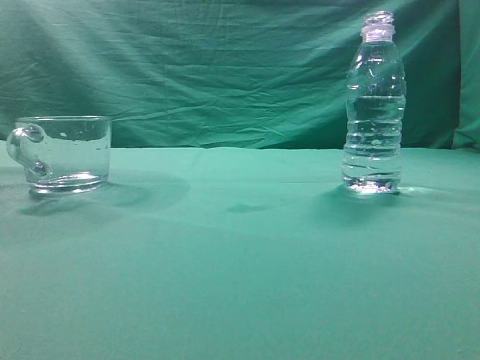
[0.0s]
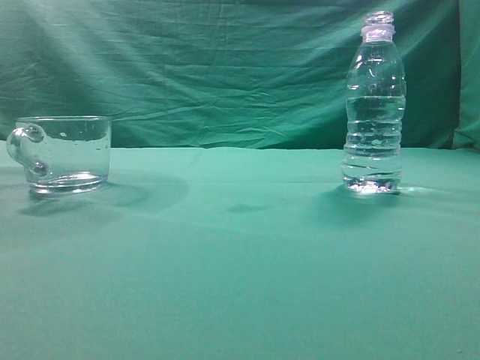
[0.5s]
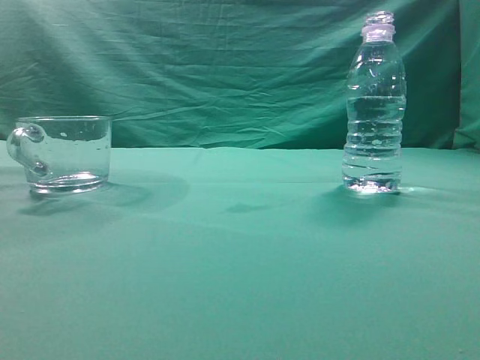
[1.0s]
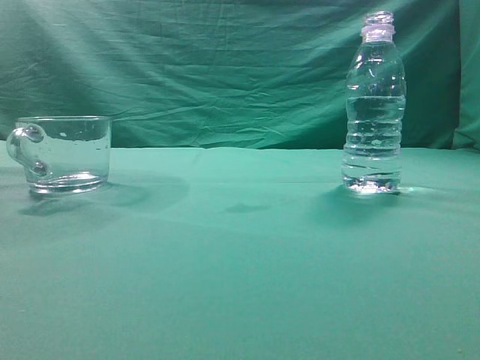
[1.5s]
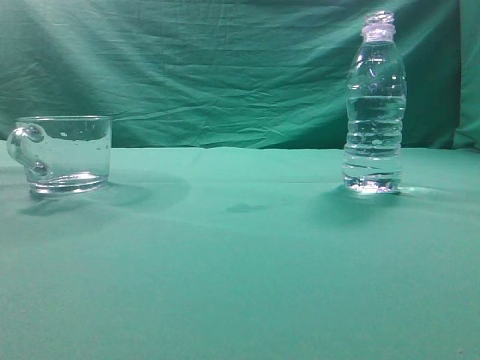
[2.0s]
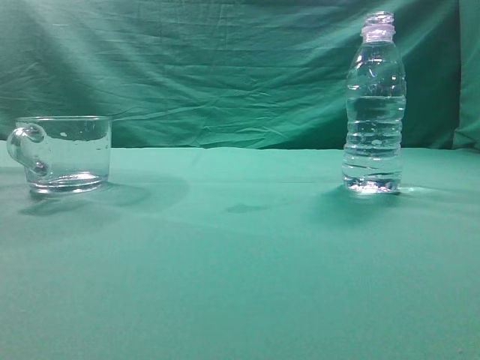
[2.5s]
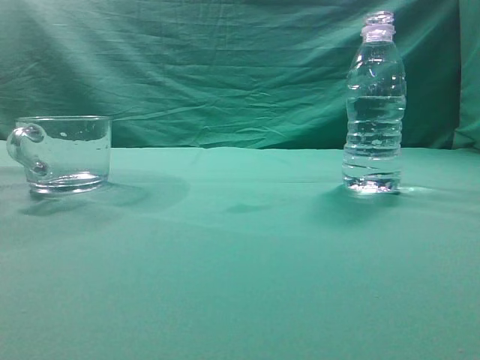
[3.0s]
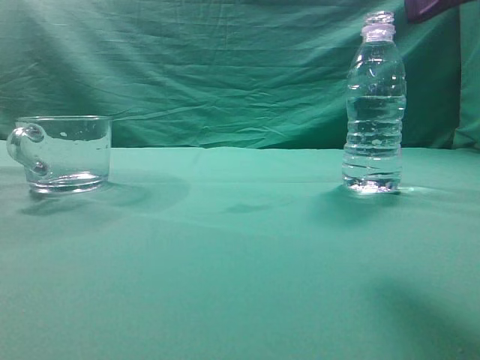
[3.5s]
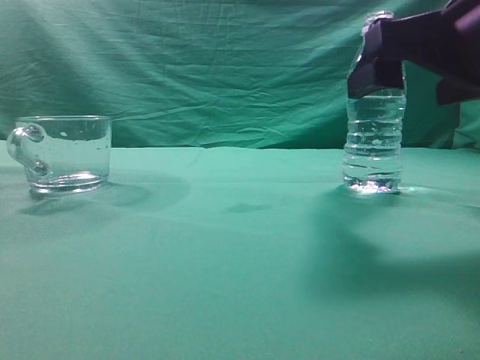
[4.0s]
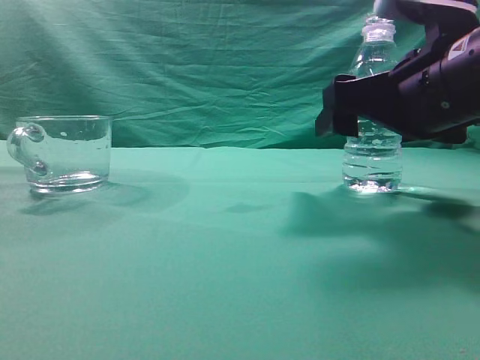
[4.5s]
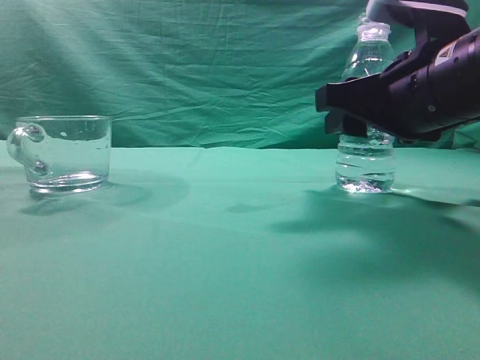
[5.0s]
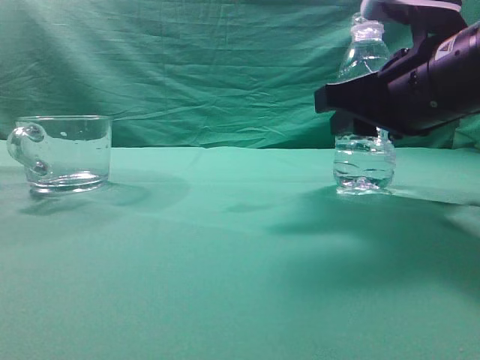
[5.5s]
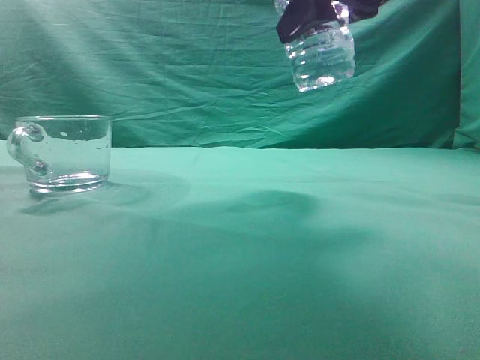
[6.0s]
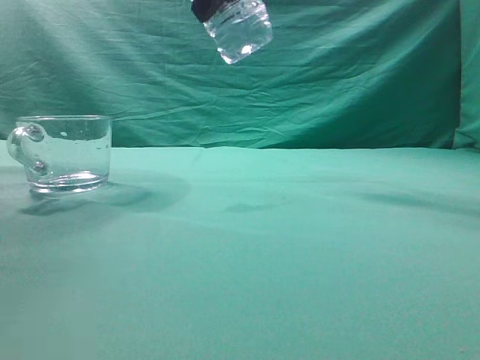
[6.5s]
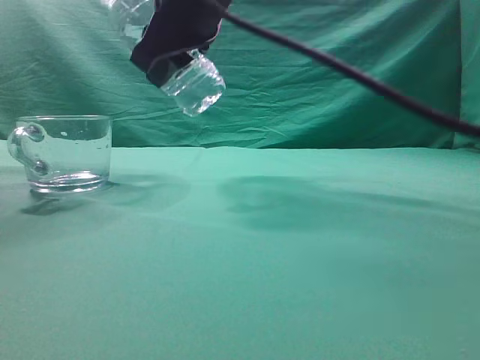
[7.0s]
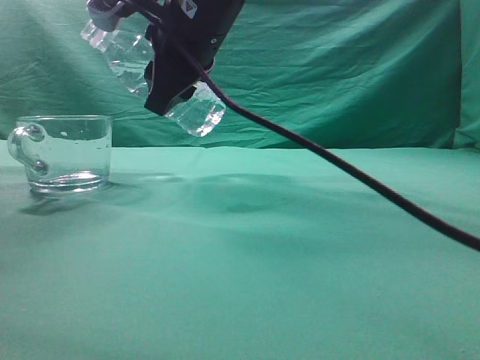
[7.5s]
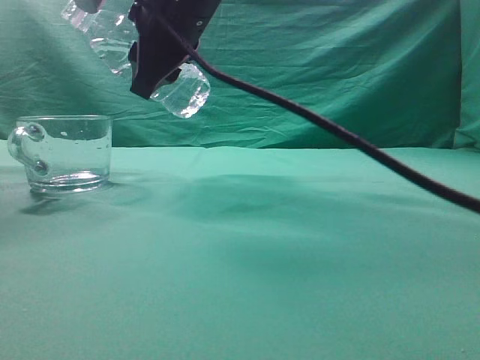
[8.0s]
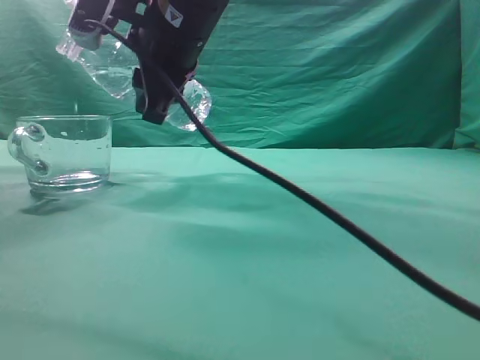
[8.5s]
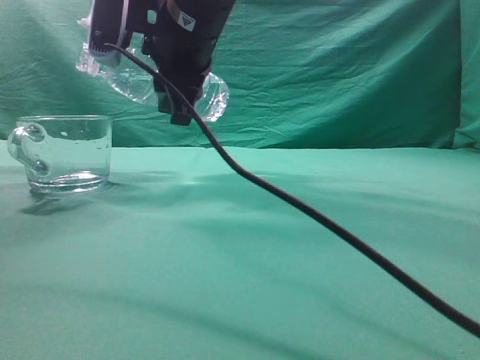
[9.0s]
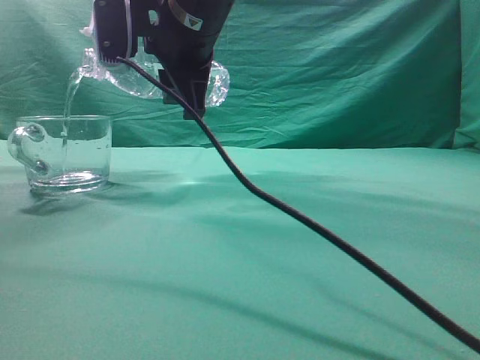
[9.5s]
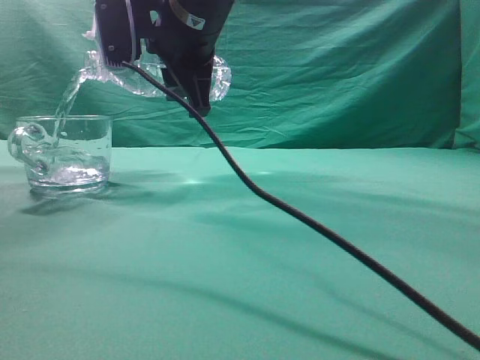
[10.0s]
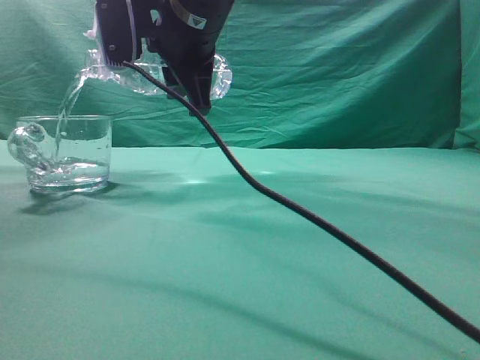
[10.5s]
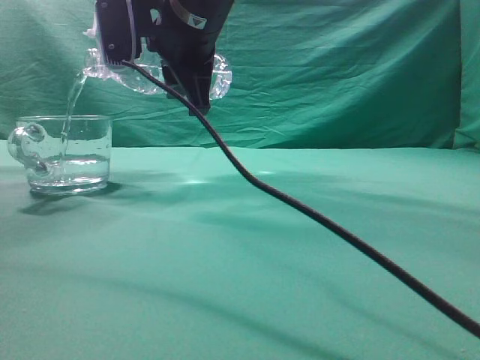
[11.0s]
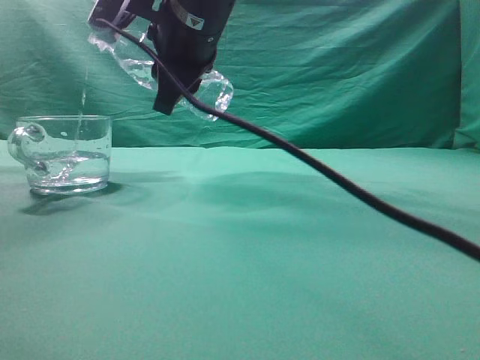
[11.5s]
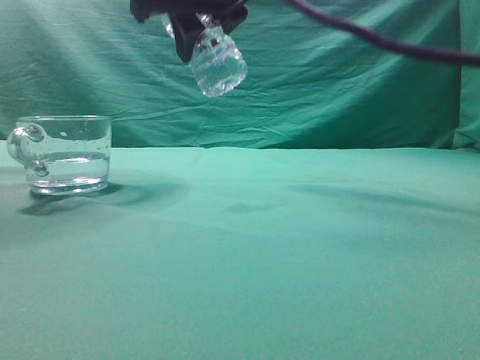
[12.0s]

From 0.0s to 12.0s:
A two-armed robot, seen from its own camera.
Task of the whole recording: pick up the water bottle and pour the water in it into the glass.
Step, from 0.0s to 5.5s: Grasp the mineral water bottle.
Step, from 6.0s to 11.5s: Pour water into the teacup.
From 2.0s to 4.0s: The right gripper shifts roughly 25 cm forward, to the left and downward, and opens.
From 4.0s to 6.0s: The right gripper heads upward, to the left and forward, covering roughly 15 cm, and closes up.
From 6.0s to 8.0s: The right gripper shifts some 15 cm to the left.
From 10.0s to 12.0s: The right gripper travels upward by about 5 cm.

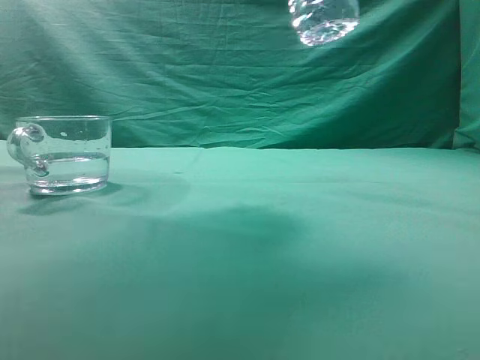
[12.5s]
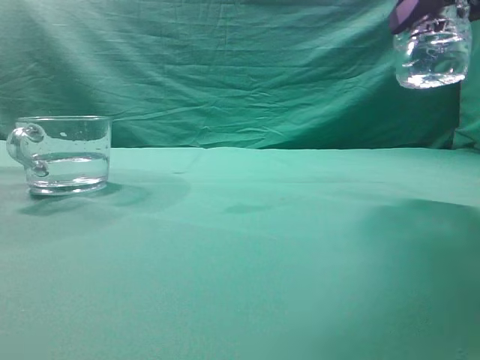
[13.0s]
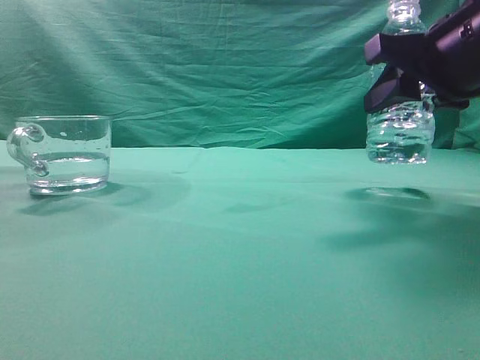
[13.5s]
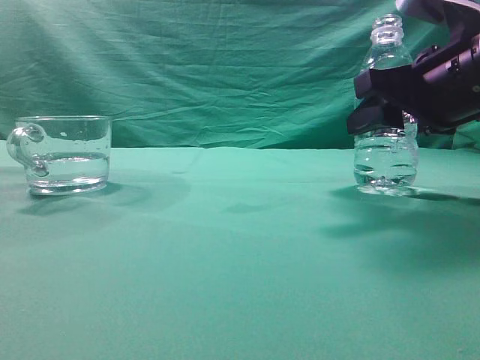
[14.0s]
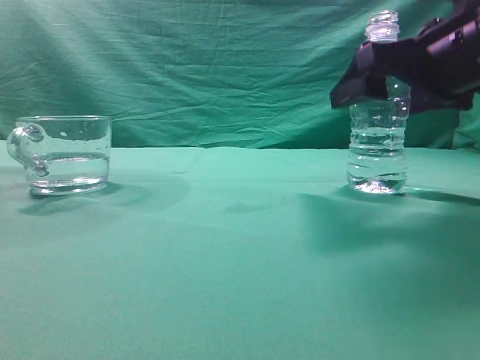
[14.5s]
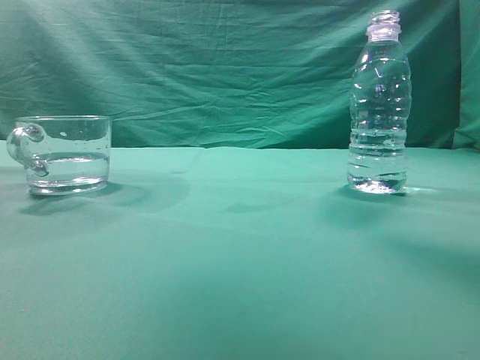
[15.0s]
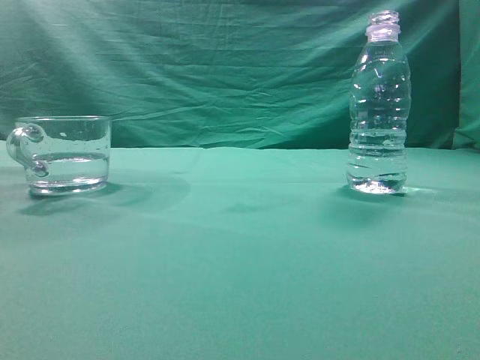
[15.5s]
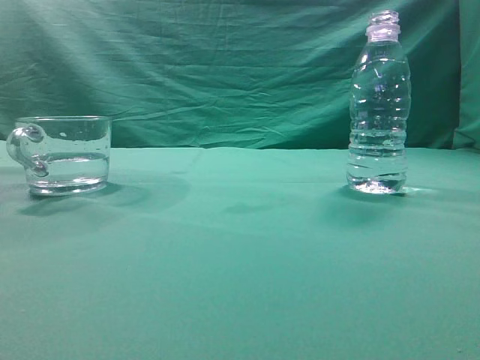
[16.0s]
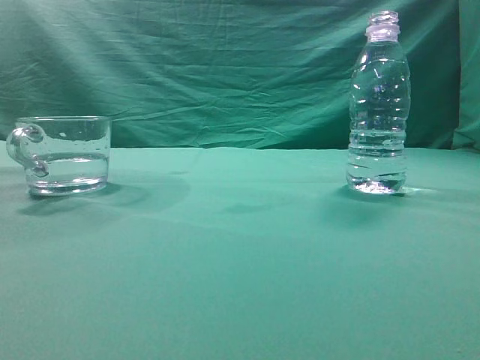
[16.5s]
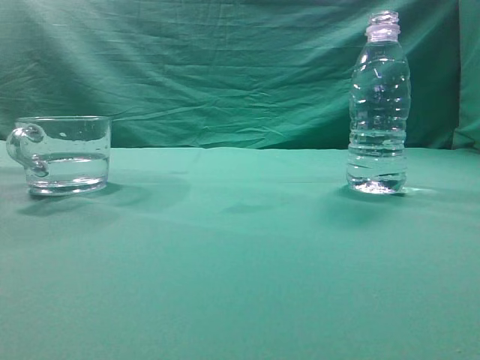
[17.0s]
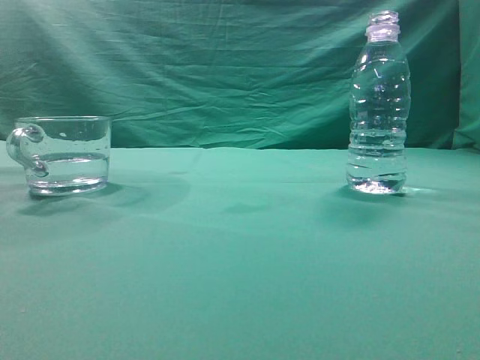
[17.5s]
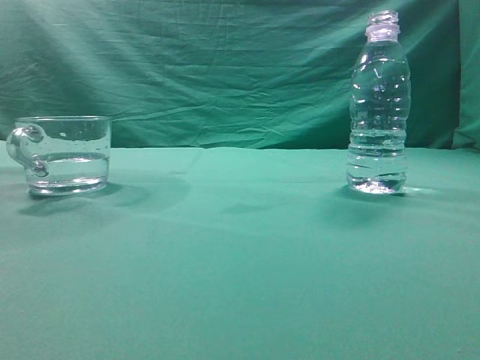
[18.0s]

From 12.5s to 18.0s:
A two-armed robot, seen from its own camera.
Task of the whole recording: pick up the water bottle and pour the water in it into the glass.
From 12.5s to 14.5s: The right gripper goes some 15 cm downward and to the right, and opens.
From 14.5s to 16.0s: The right gripper moves backward and upward, some 30 cm, and closes up.
